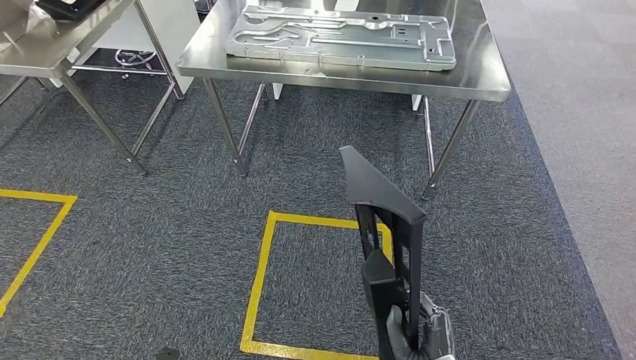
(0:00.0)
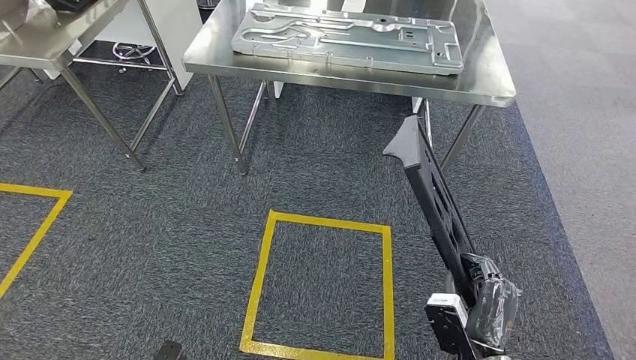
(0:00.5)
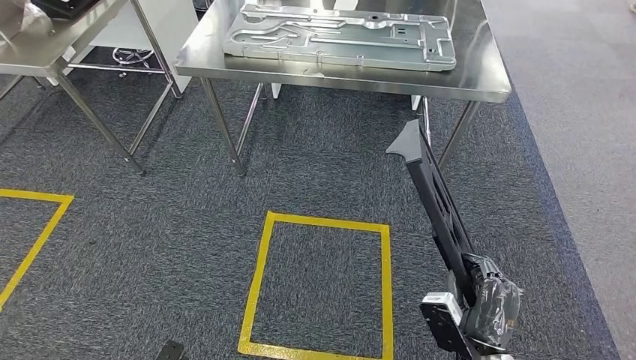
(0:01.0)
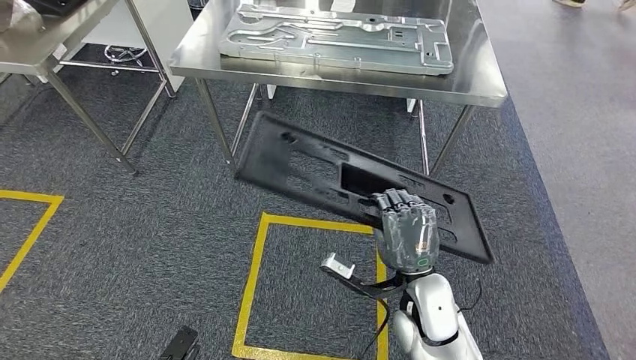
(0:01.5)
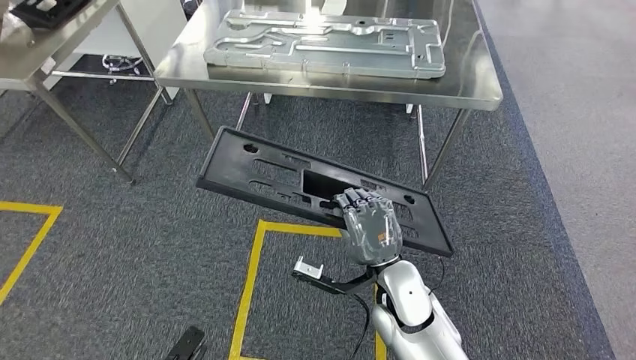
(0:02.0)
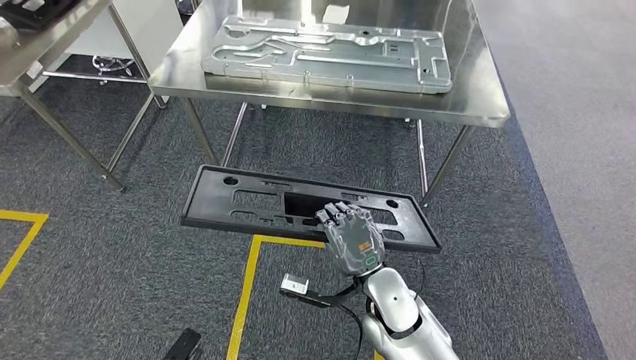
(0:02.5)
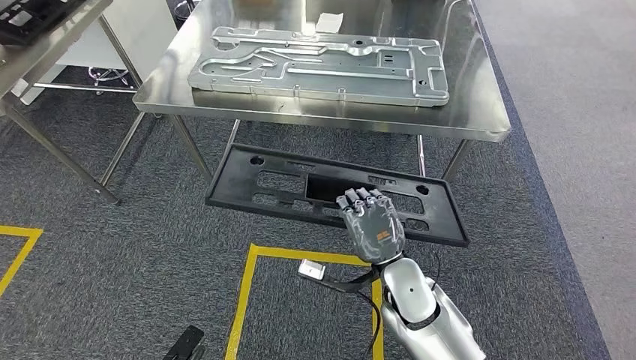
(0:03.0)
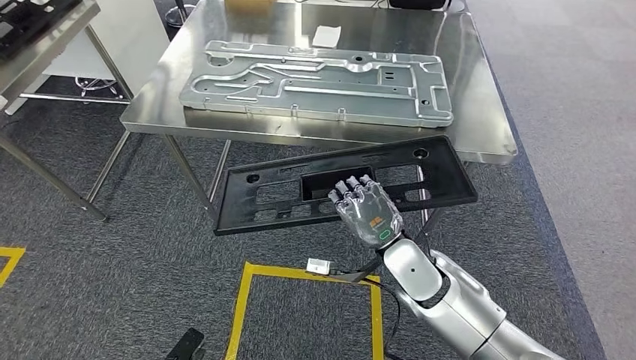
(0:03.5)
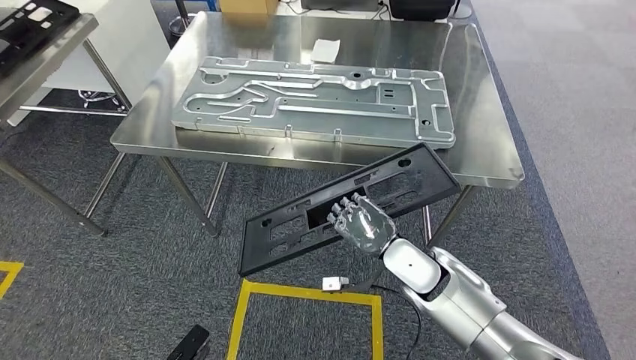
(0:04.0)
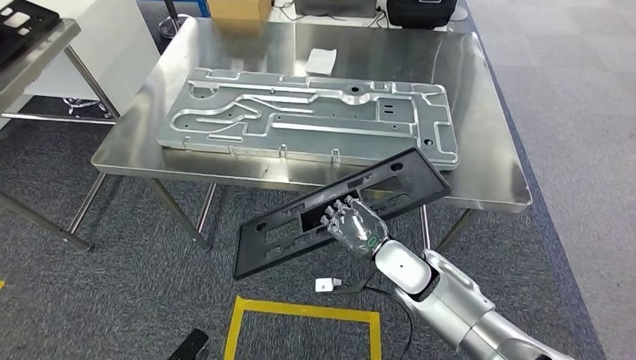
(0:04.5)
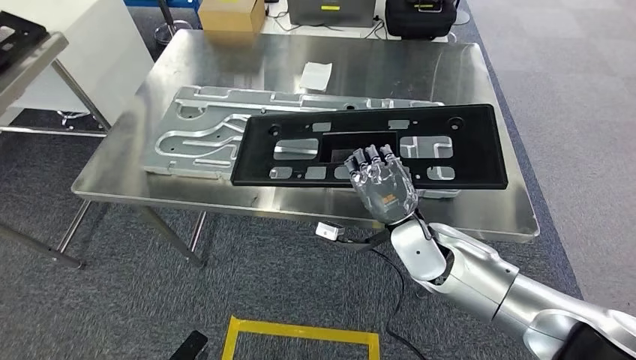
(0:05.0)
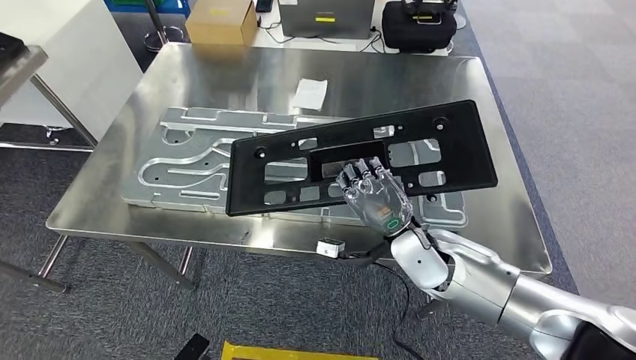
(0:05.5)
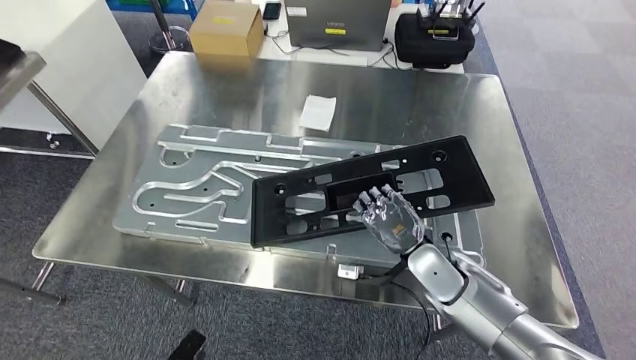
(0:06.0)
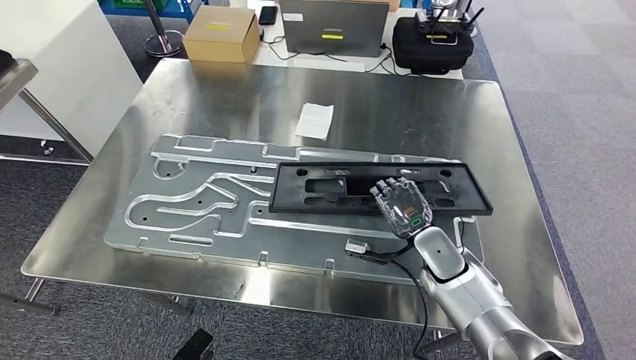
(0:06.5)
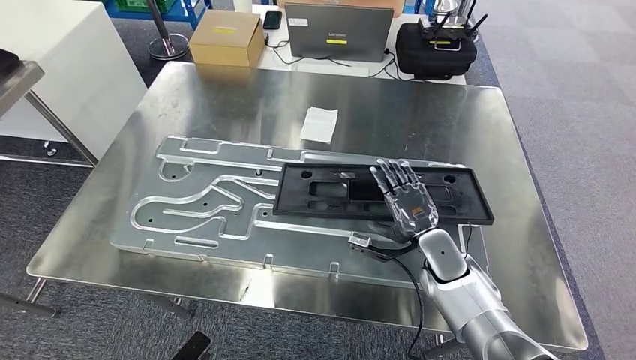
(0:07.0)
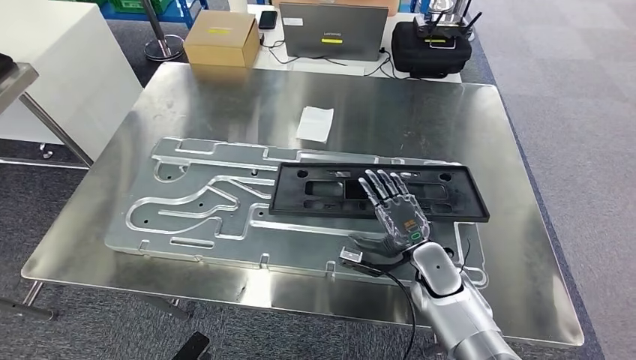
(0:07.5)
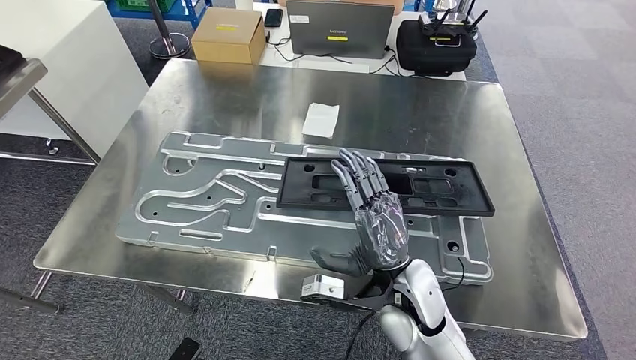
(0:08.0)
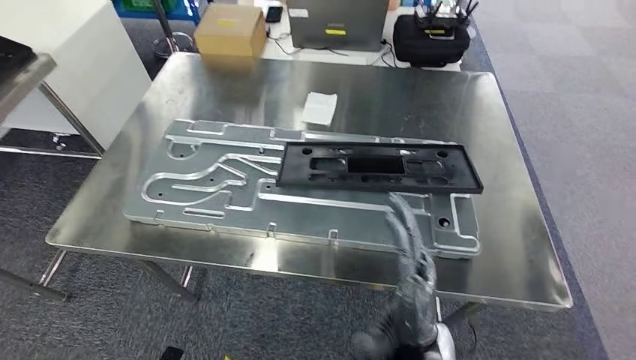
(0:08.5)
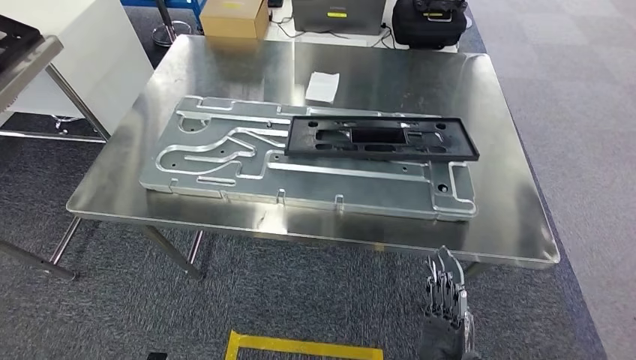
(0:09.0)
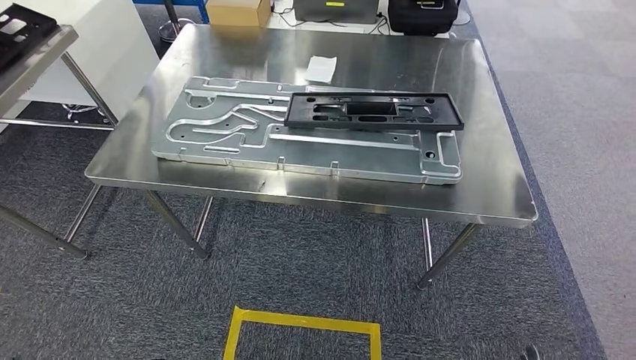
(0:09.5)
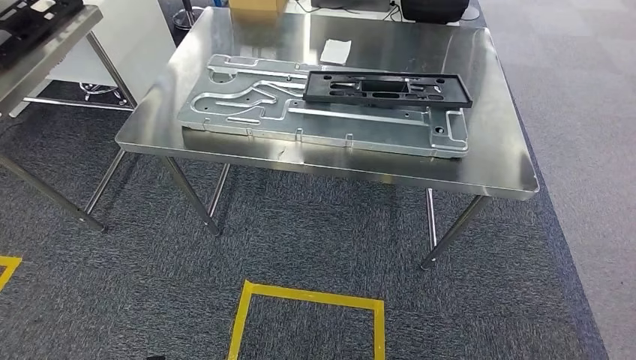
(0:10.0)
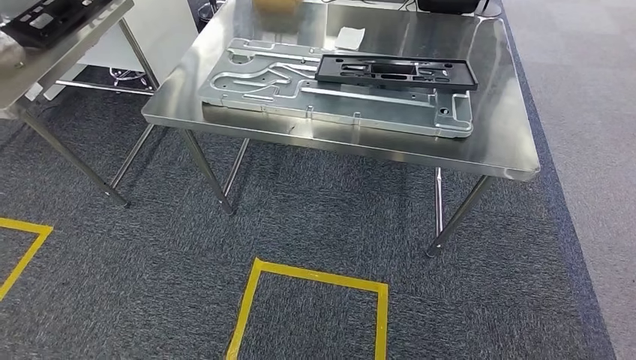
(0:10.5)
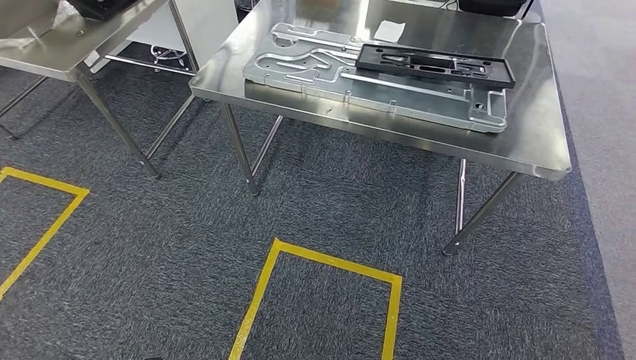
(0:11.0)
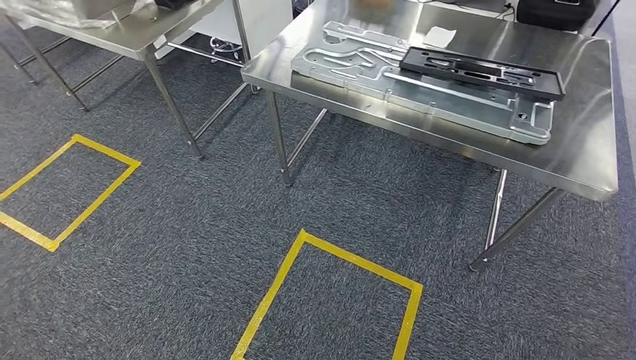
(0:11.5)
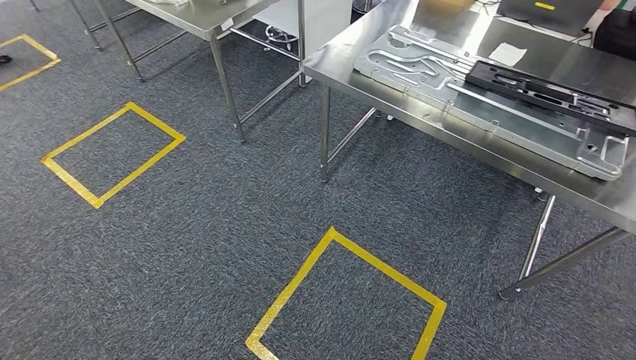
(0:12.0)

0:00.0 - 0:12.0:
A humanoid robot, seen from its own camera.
Step, 0:00.0 - 0:04.5: Move the large material to the workbench.
Step, 0:05.0 - 0:10.5: Insert the large material into the corresponding slot on the workbench.

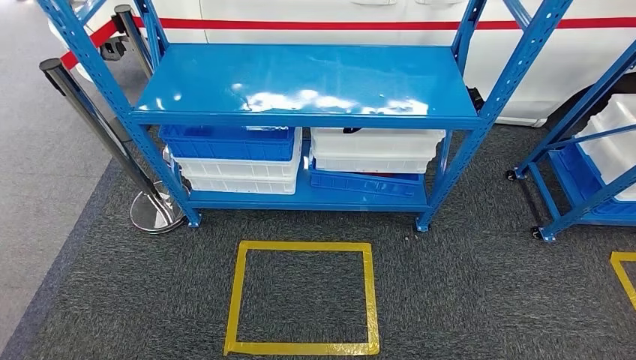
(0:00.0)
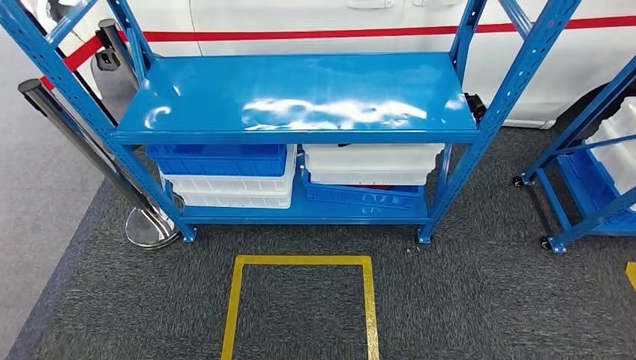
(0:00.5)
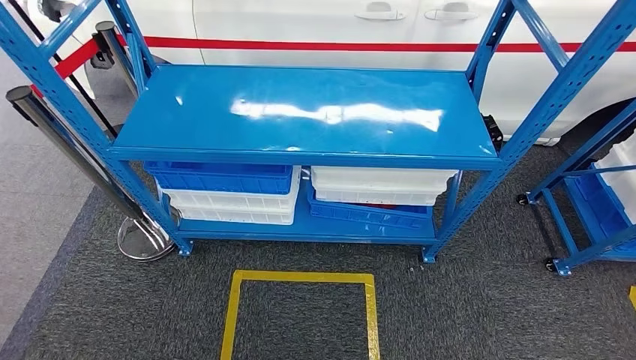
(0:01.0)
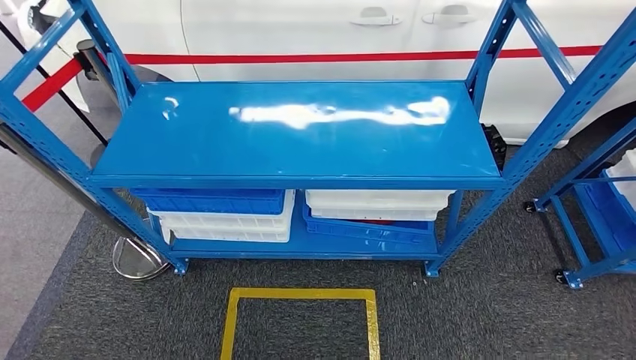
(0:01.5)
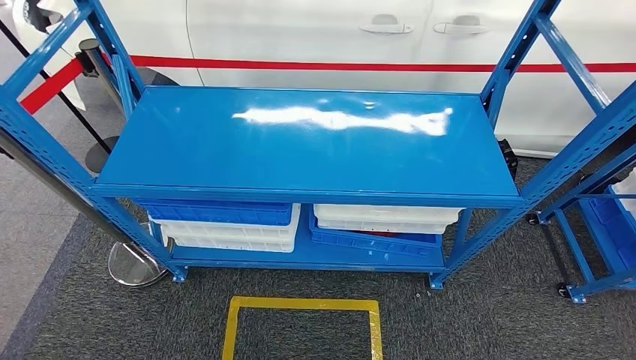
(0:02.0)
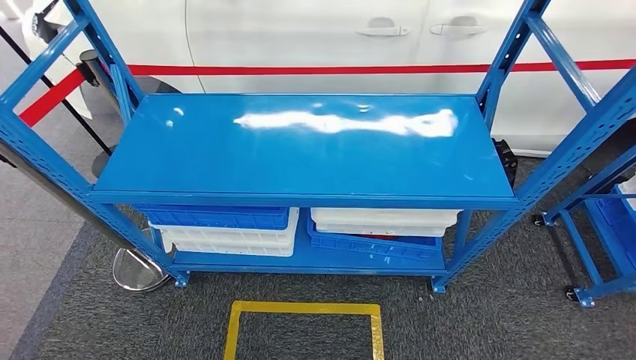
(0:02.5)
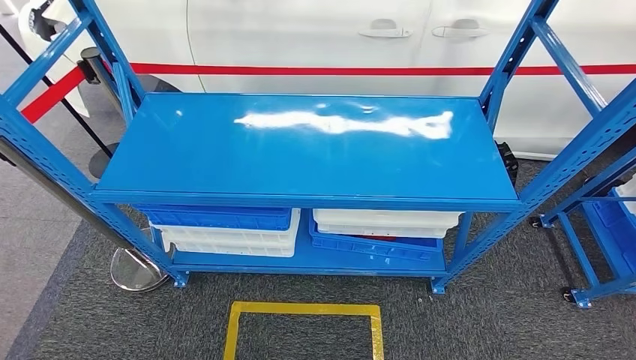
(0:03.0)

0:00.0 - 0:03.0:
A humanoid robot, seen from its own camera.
Step, 0:00.0 - 0:03.0: Return to the initial position at the shelf.
